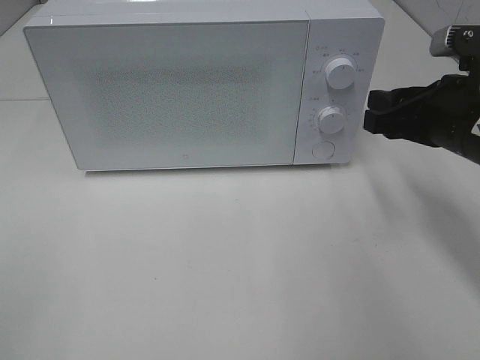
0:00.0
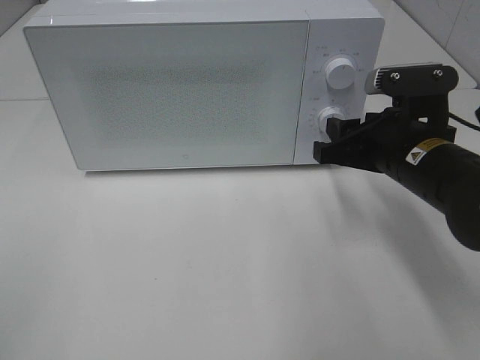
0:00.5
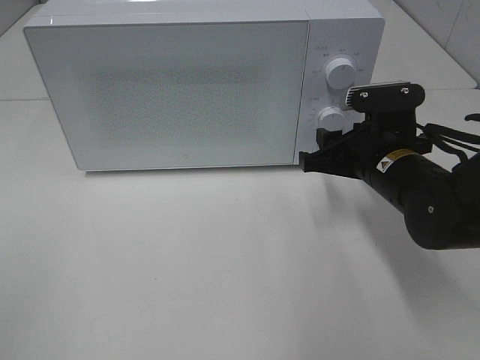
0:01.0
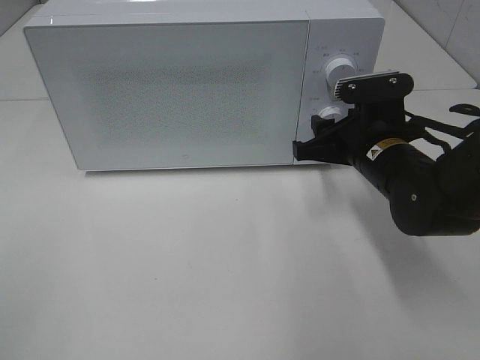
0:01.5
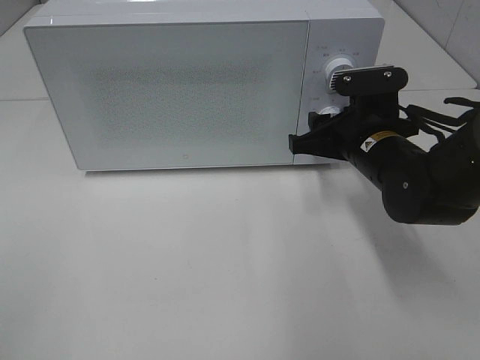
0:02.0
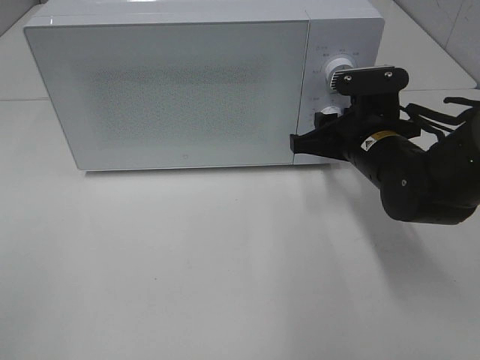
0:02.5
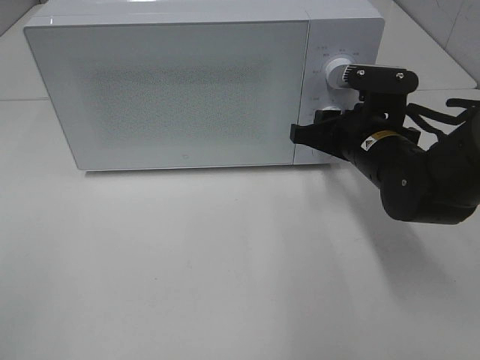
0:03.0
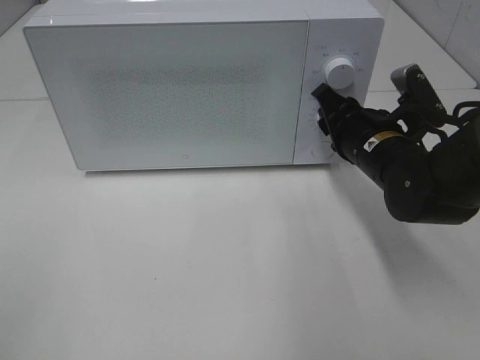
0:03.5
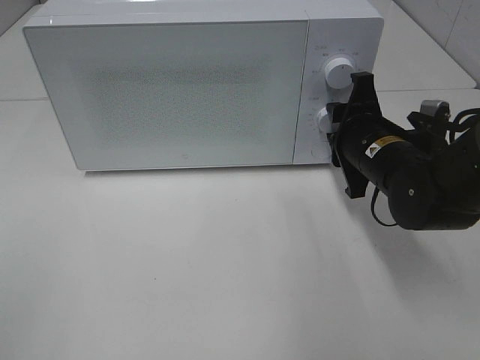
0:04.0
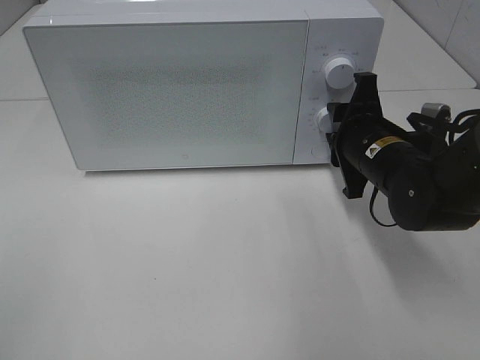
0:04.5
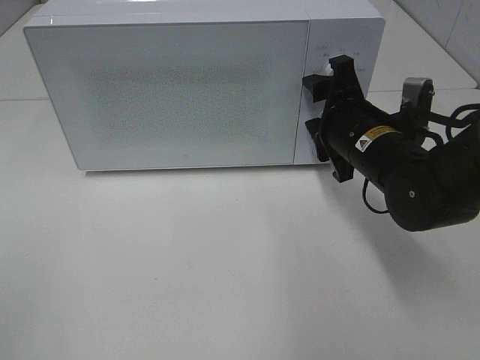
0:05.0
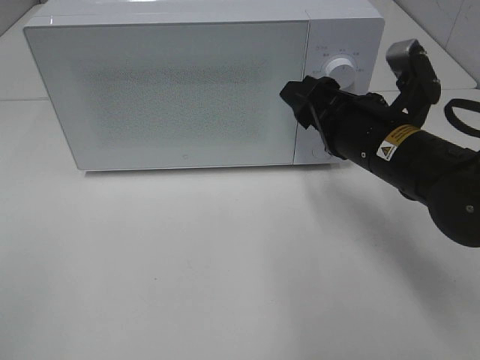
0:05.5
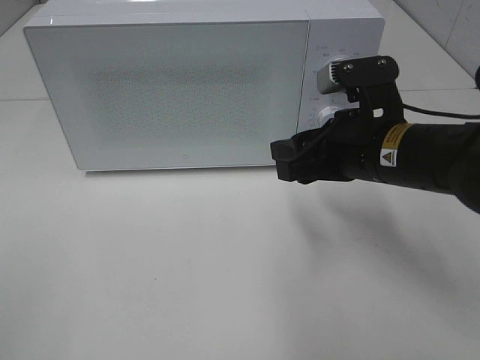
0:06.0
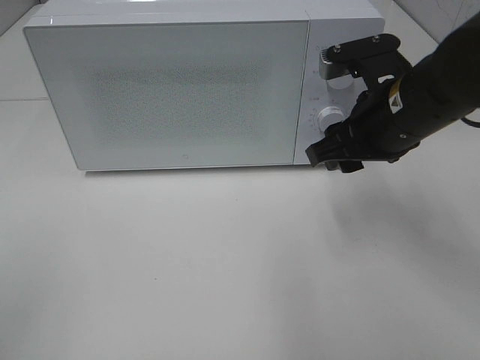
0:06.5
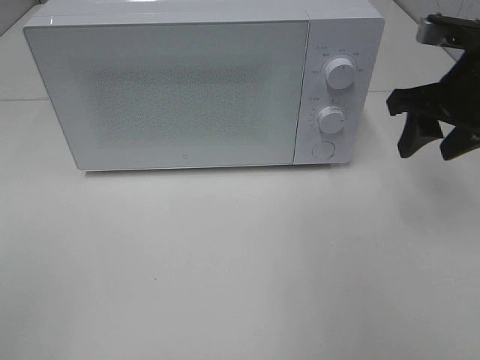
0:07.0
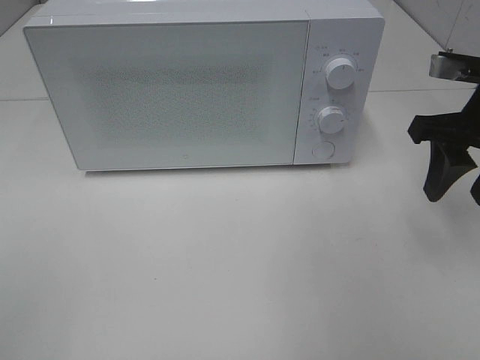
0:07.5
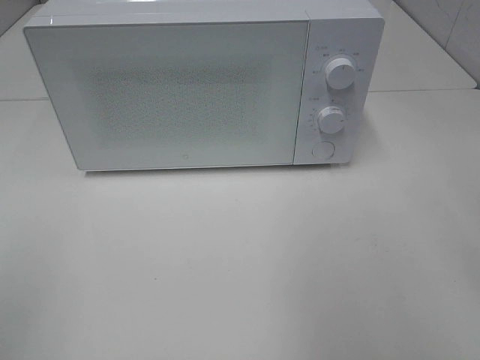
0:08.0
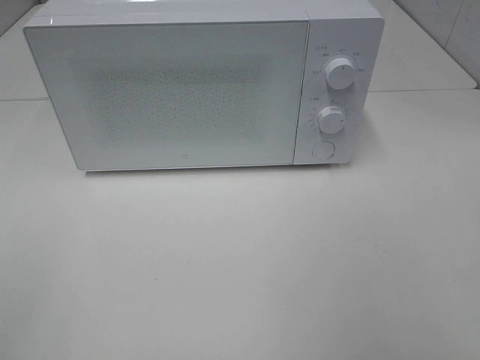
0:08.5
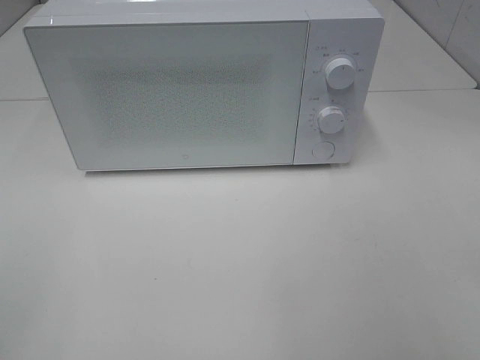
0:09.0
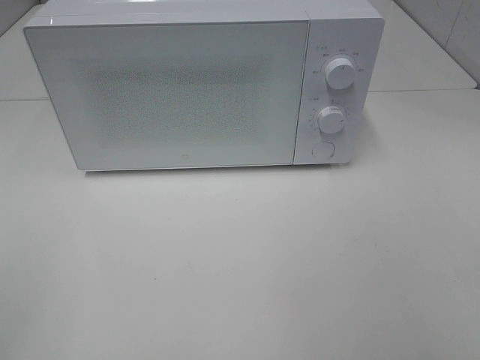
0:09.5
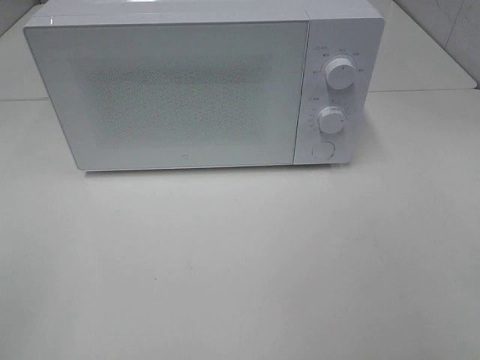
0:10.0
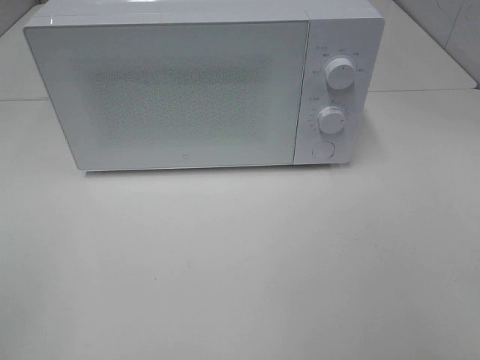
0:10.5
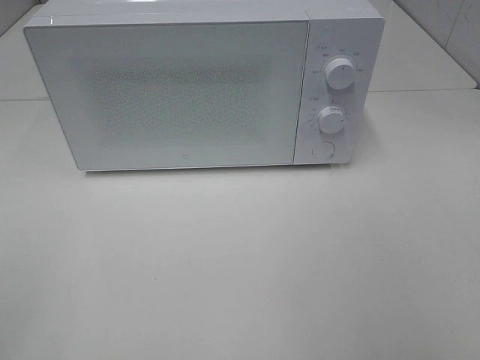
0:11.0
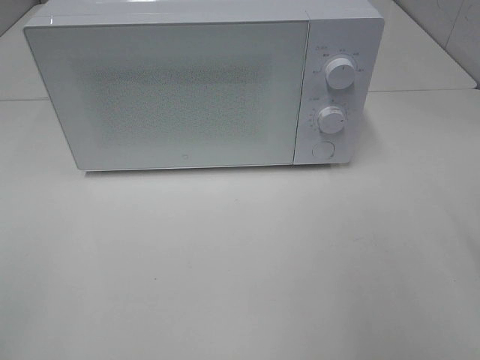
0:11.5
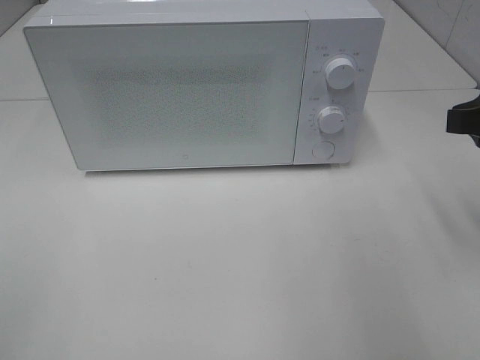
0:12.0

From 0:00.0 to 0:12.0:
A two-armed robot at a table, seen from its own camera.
Task of the whole recording: Heat the burger.
Step, from 0:00.0 to 0:04.5: Right hand: twist timer button.
From 0:00.0 to 0:02.0: The right gripper moves to the left and downward, some 10 cm.
From 0:04.0 to 0:06.0: The right gripper moves backward, roughly 5 cm.
From 0:06.0 to 0:08.0: The right gripper travels upward and to the right by some 20 cm.
From 0:10.0 to 0:12.0: The right gripper moves forward, about 20 cm.

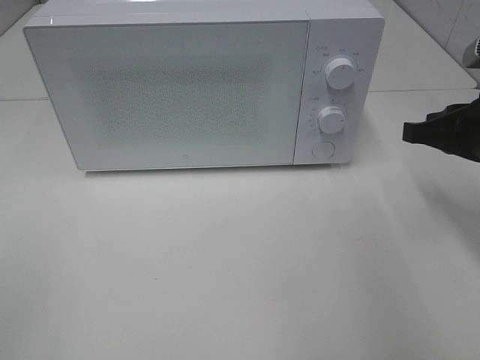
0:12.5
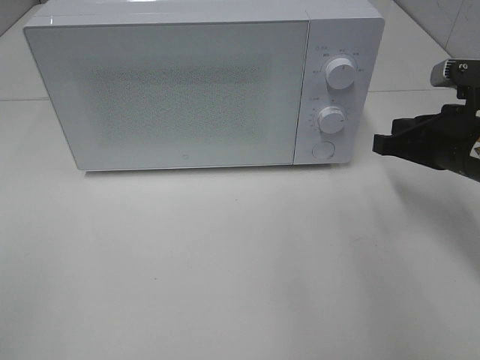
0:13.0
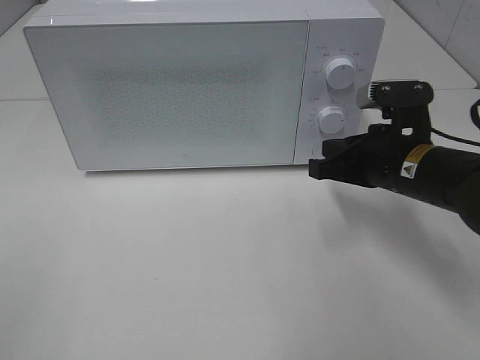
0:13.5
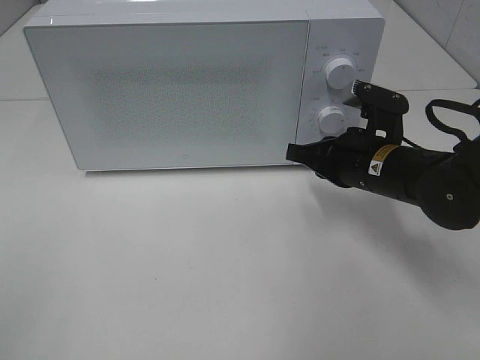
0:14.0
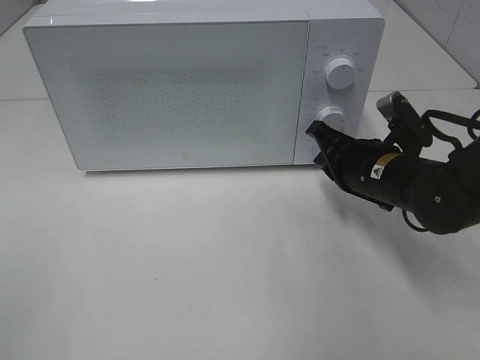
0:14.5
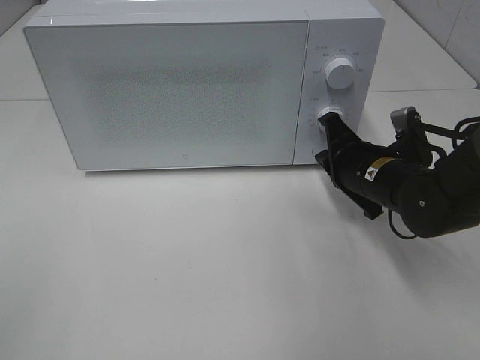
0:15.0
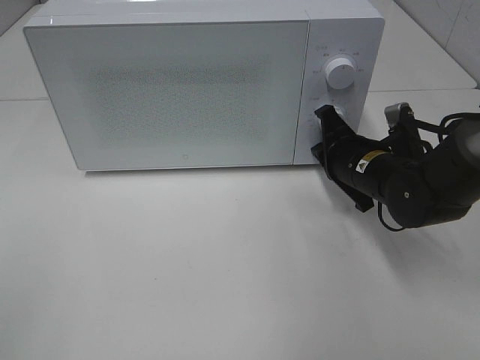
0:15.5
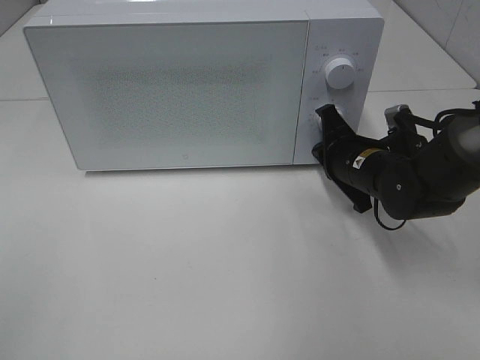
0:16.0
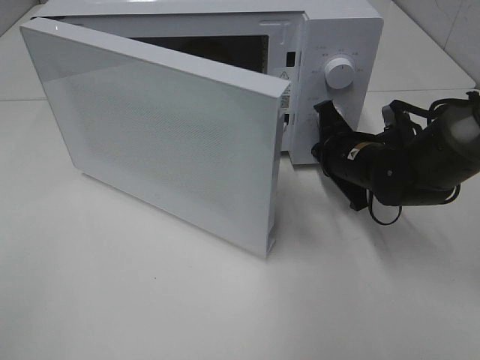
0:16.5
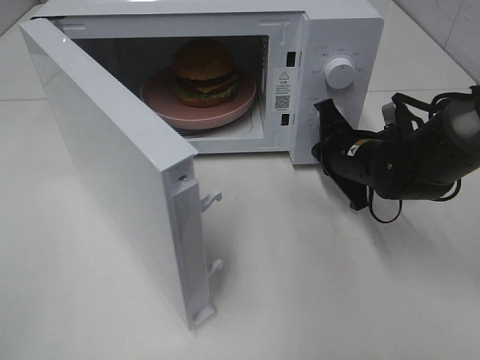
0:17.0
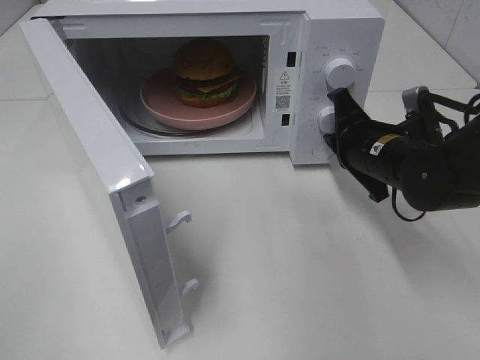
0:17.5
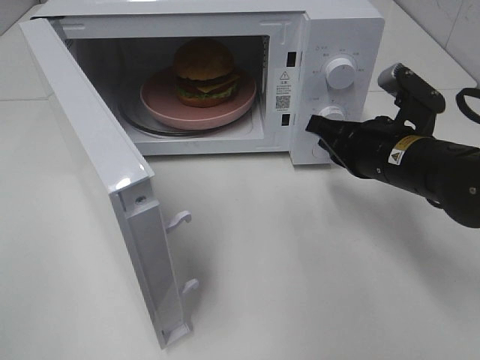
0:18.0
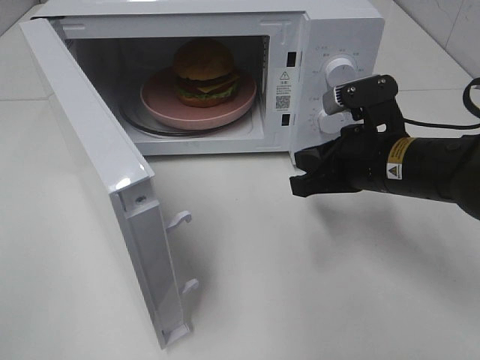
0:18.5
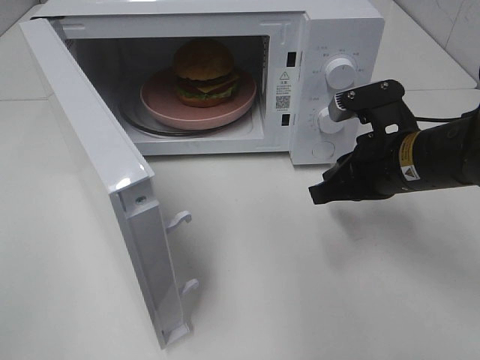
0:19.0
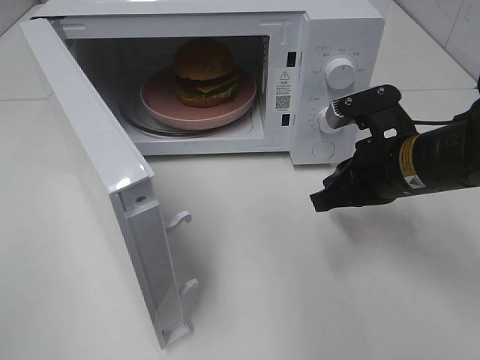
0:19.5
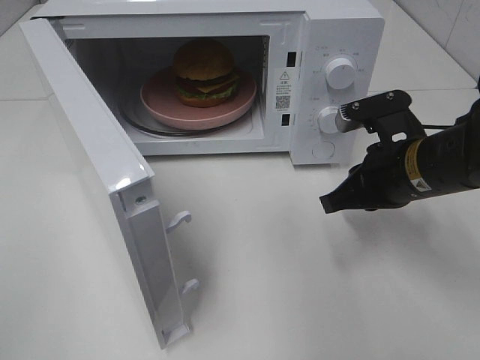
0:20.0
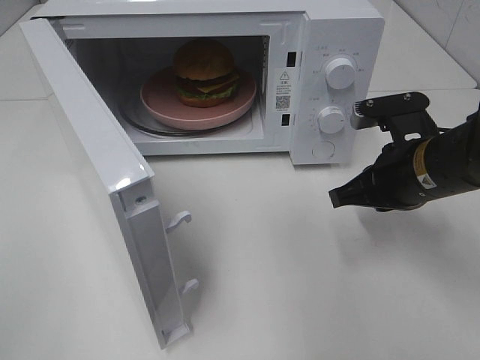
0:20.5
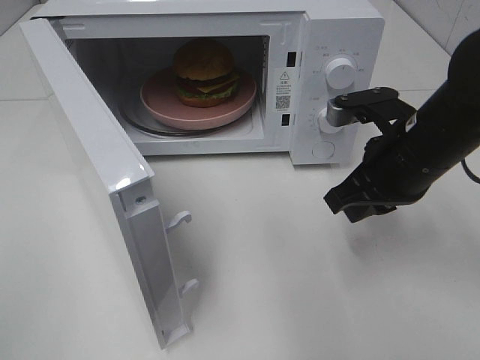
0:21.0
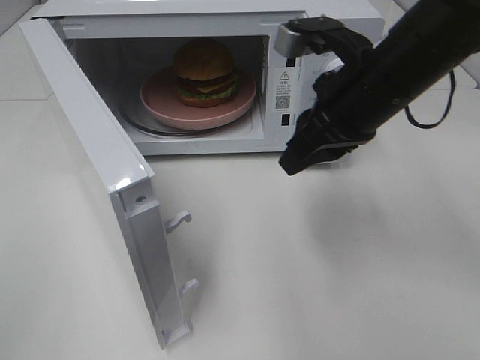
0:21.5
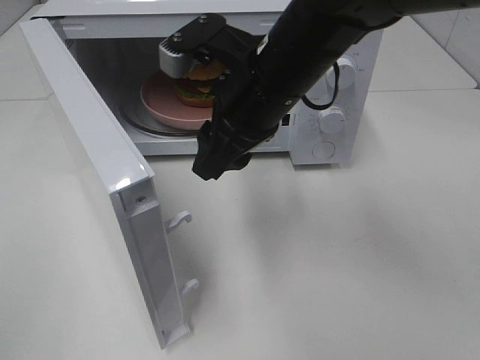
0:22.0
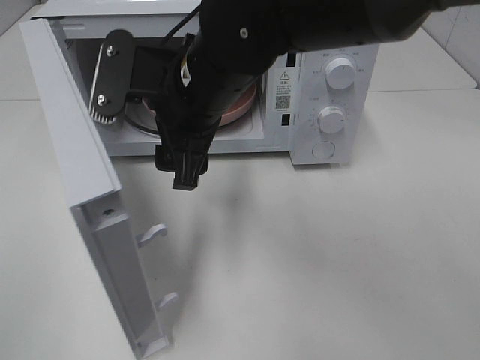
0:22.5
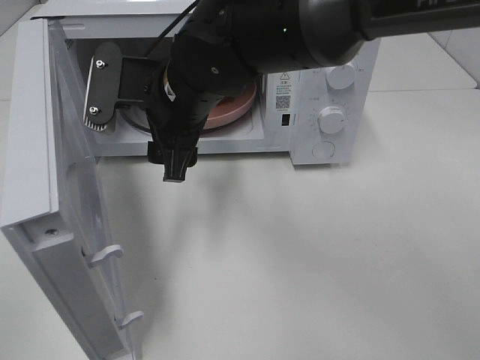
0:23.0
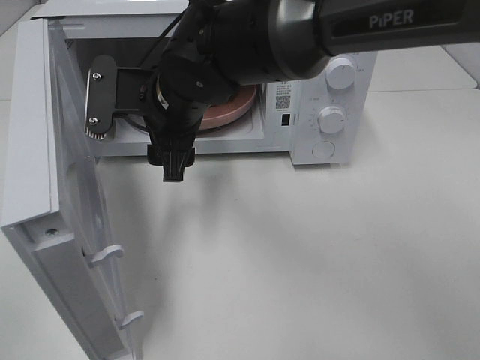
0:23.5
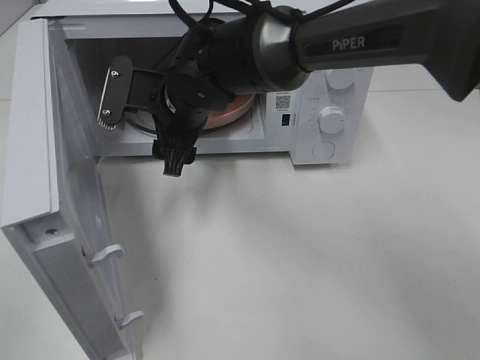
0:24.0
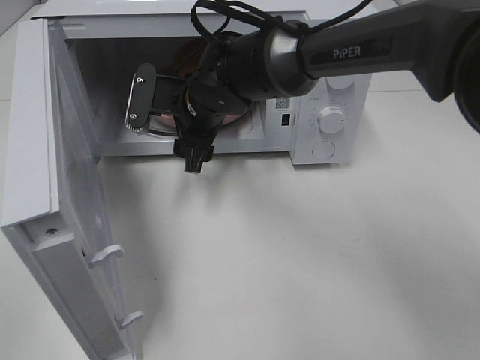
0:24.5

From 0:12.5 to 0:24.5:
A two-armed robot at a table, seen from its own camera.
Task of the whole recording: Heat the burger.
Step, from 0:12.5 to 0:17.5: Right hand: press the switch.
From 0:12.5 to 0:14.5: The right gripper goes about 15 cm to the left and downward.
From 0:14.5 to 0:16.5: The right gripper shifts by about 5 cm.
From 0:16.5 to 0:18.5: The right gripper goes roughly 10 cm backward and upward.
From 0:20.5 to 0:22.5: The right gripper travels to the left by some 20 cm, and opens up.
From 0:22.5 to 0:24.5: The right gripper heads forward and downward, covering approximately 10 cm.

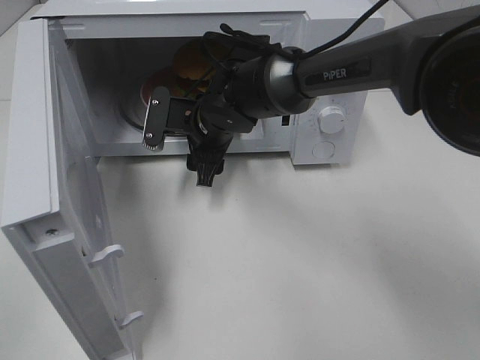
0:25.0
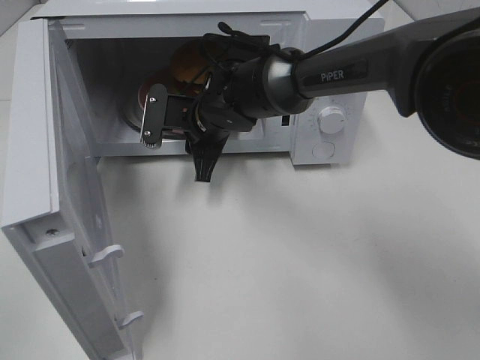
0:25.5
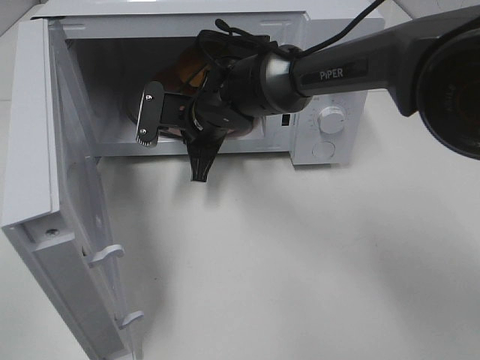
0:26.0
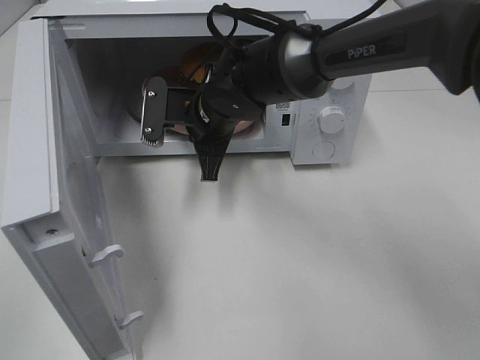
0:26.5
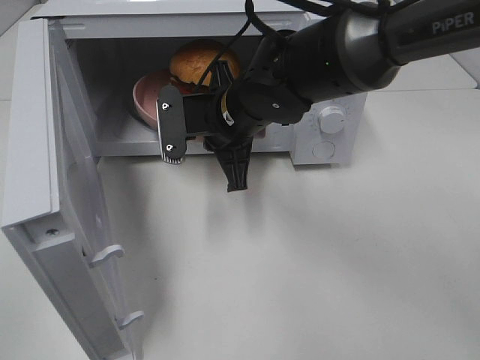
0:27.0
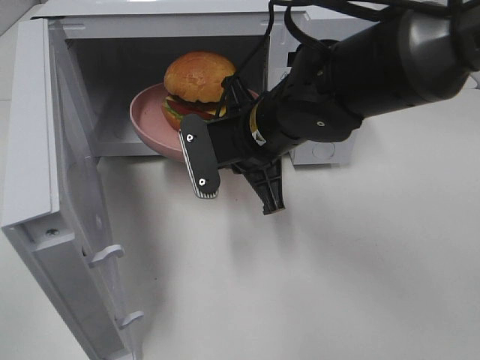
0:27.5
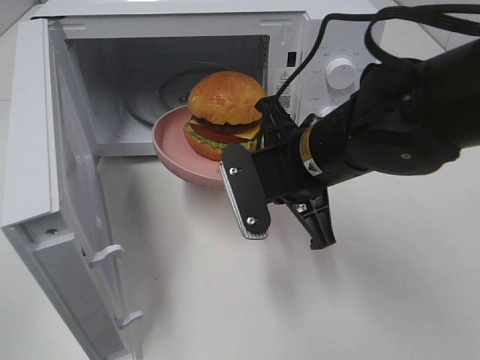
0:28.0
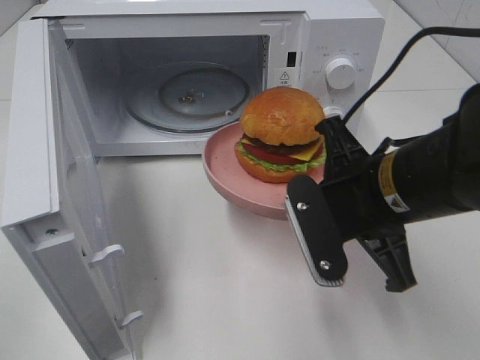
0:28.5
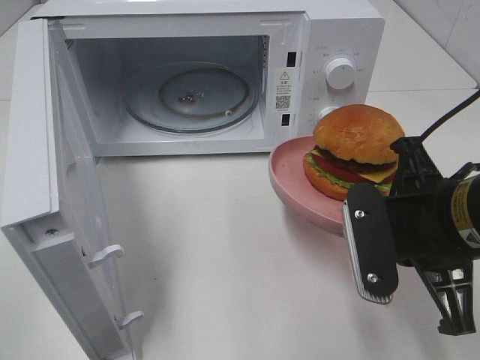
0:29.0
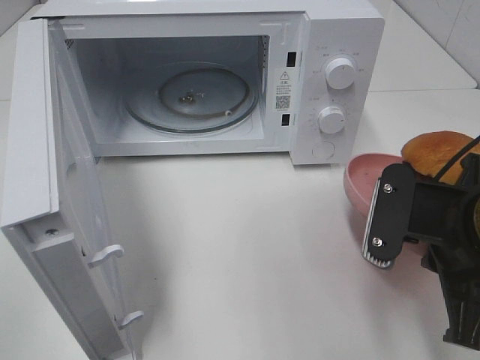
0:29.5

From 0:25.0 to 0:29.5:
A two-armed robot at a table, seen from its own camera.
Task of the whole recording: Heat the burger.
From 0:25.0 to 0:27.0: The right gripper shifts about 10 cm backward and upward, and closes.
From 0:27.0 to 0:29.5: The right gripper goes approximately 25 cm to the right and backward.
